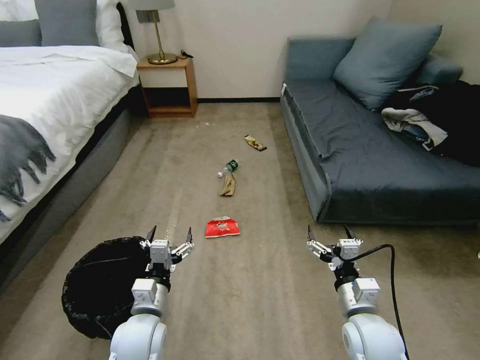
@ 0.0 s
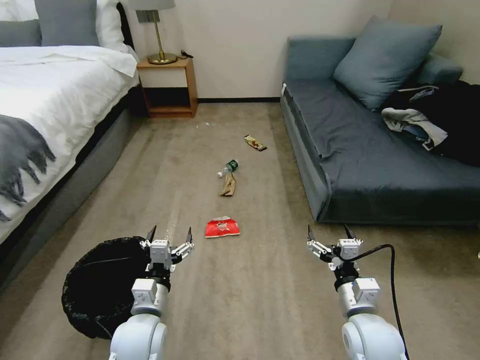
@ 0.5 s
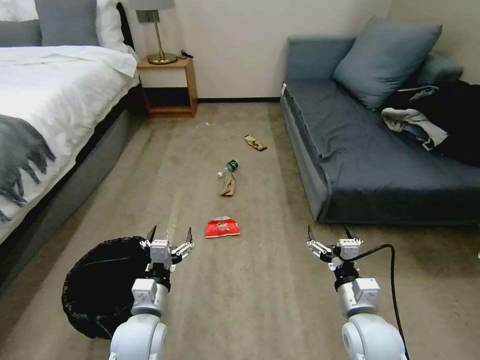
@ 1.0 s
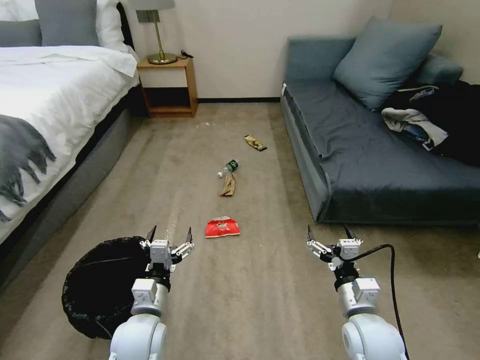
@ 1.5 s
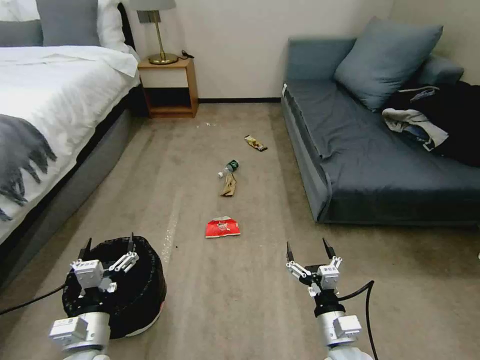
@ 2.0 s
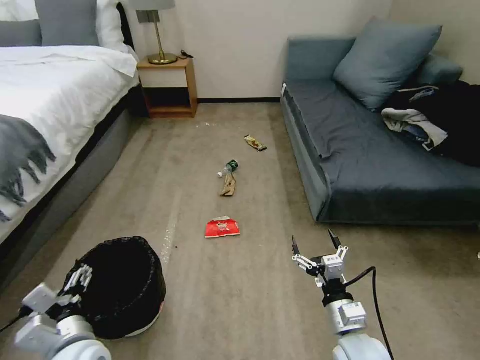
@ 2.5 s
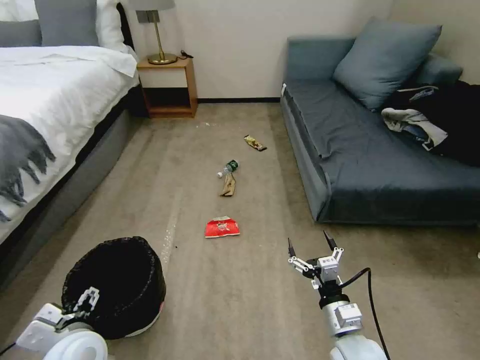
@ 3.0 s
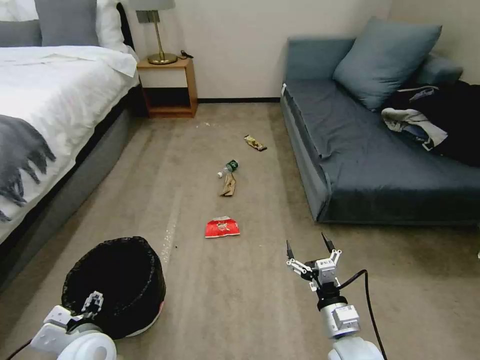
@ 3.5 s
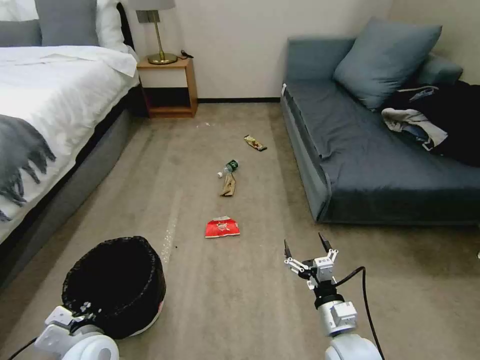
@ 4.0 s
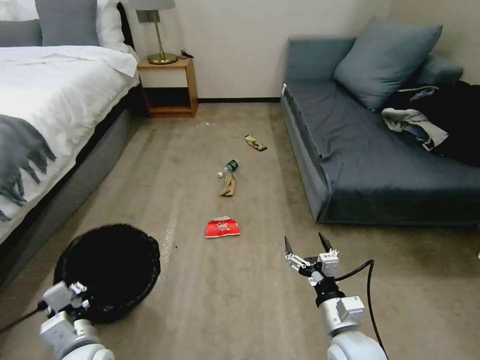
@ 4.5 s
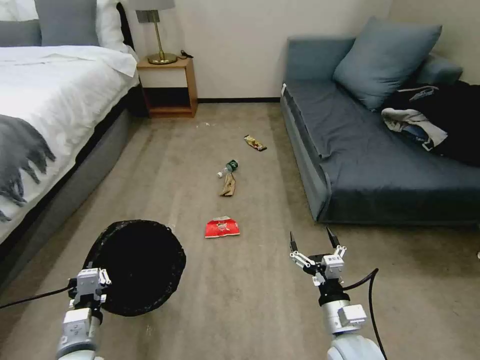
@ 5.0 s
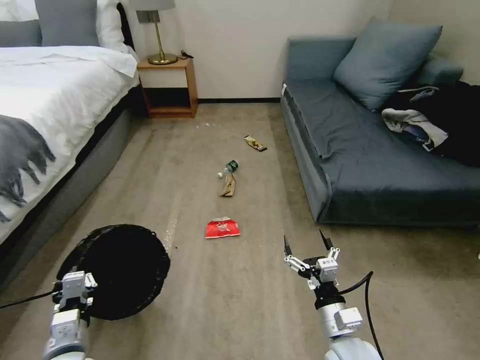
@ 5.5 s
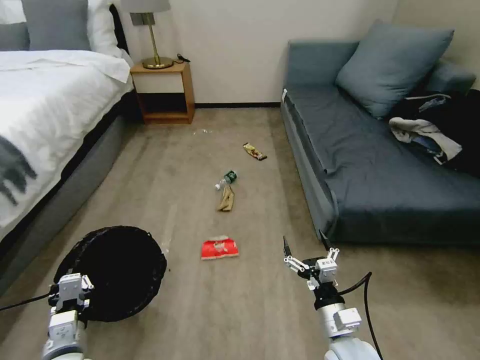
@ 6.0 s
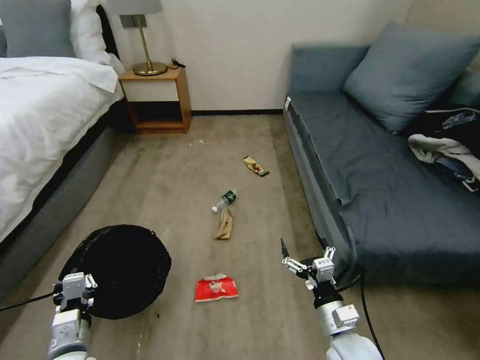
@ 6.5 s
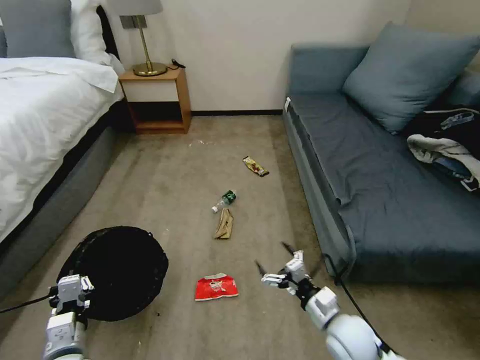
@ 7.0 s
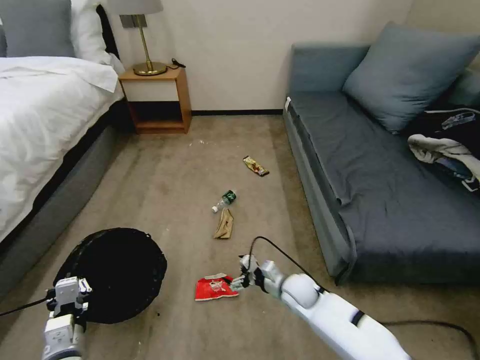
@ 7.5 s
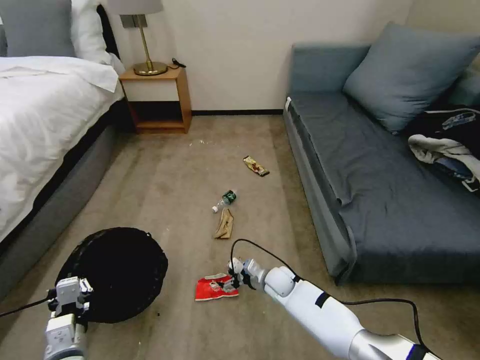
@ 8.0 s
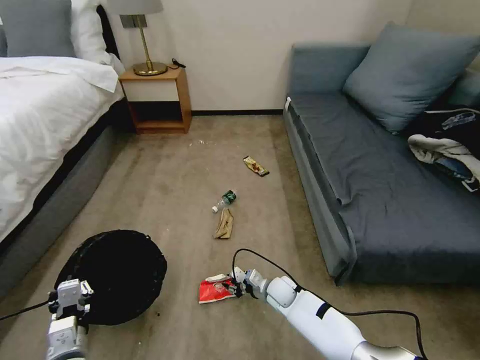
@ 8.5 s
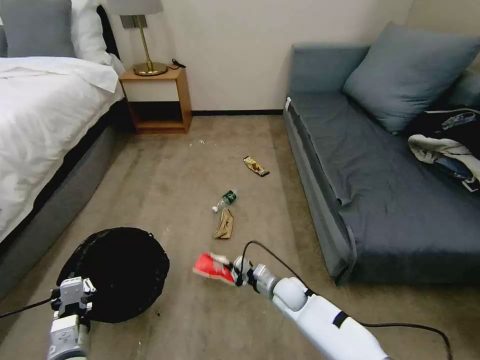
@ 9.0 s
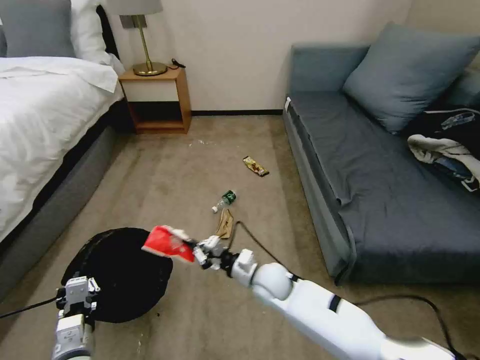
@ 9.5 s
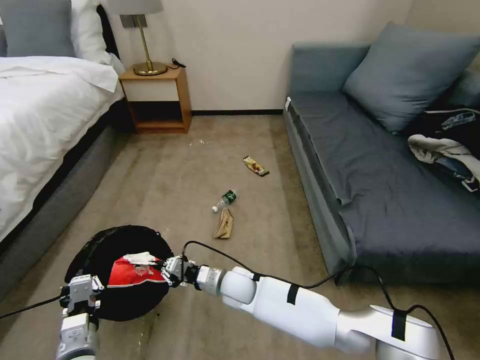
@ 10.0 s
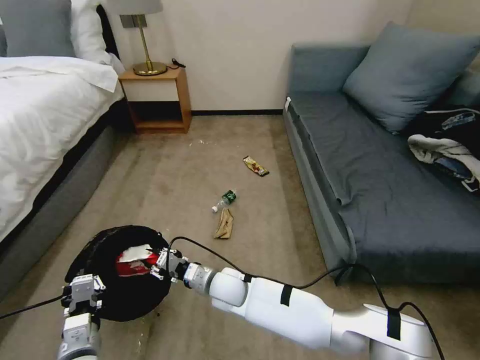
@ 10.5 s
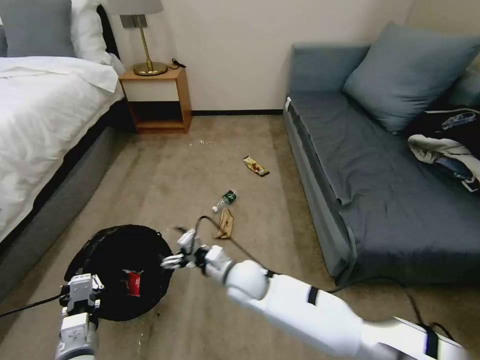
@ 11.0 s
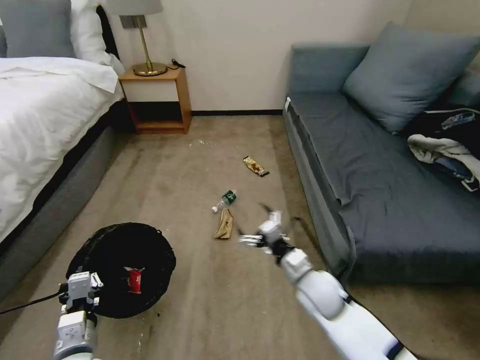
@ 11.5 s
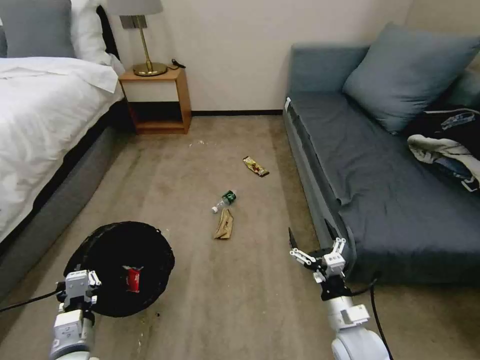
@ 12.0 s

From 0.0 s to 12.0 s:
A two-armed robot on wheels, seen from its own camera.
Task of the whole recording: Pick up the trash bin, then pick up the garbage on the floor and place it into the trash bin.
From 2.0 s to 4.0 s: The left gripper closes.
From 4.0 s to 6.0 s: The left gripper shifts by about 5 cm.
From 6.0 s to 8.0 s: The right gripper heads forward, downward and to the left, covering approximately 25 cm.
From 8.0 s to 10.0 s: The right gripper is displaced to the left and upward by some 15 cm, and closes its fingers.
From 10.0 s to 12.0 s: The right gripper heads to the right and backward, covering some 30 cm, and opens its fingers.

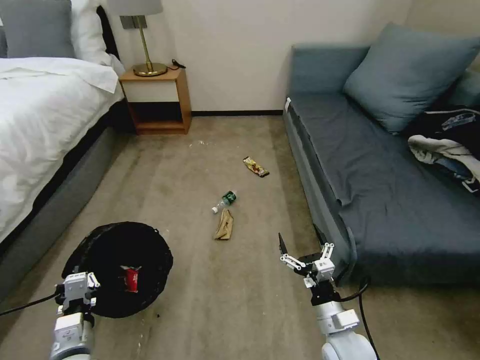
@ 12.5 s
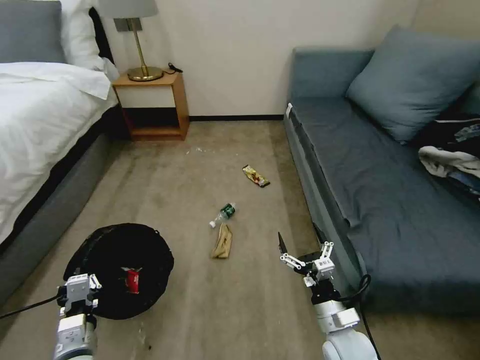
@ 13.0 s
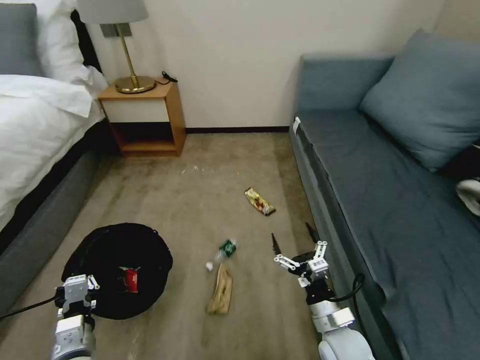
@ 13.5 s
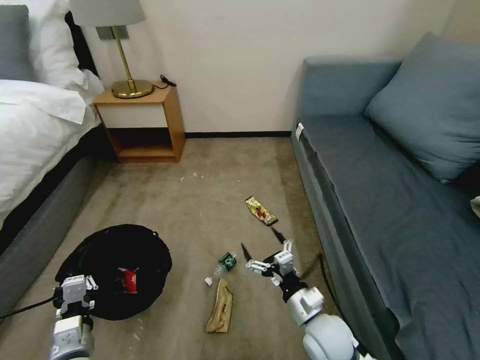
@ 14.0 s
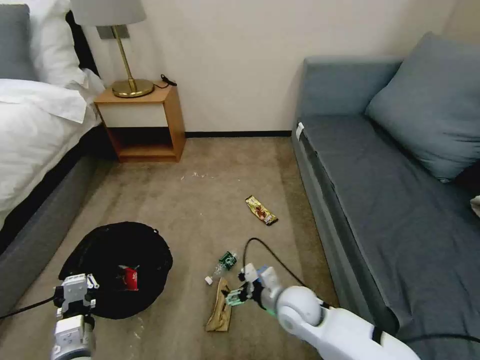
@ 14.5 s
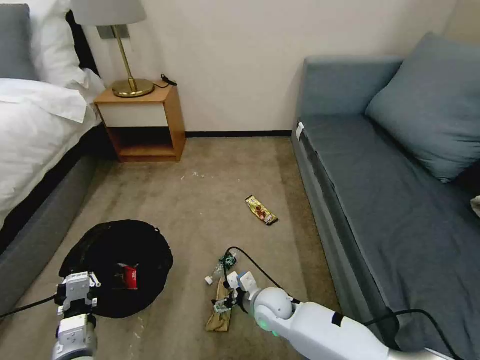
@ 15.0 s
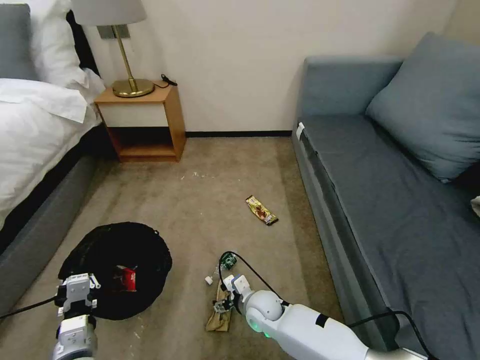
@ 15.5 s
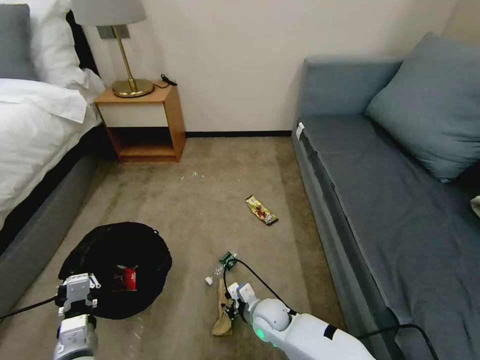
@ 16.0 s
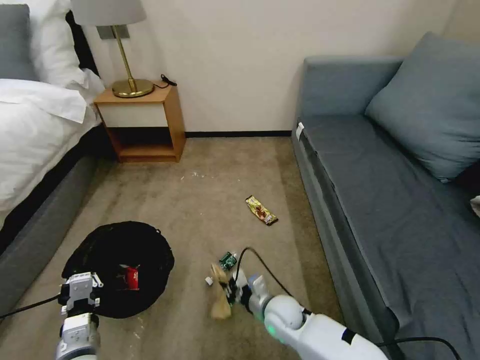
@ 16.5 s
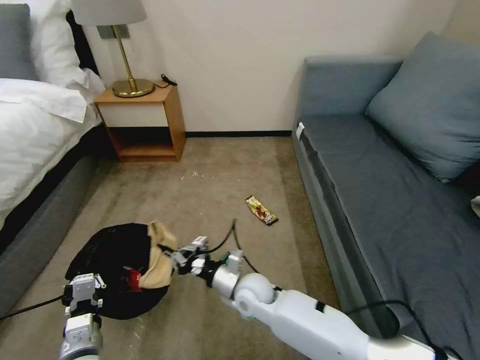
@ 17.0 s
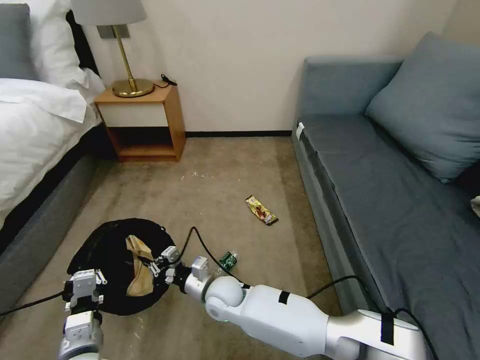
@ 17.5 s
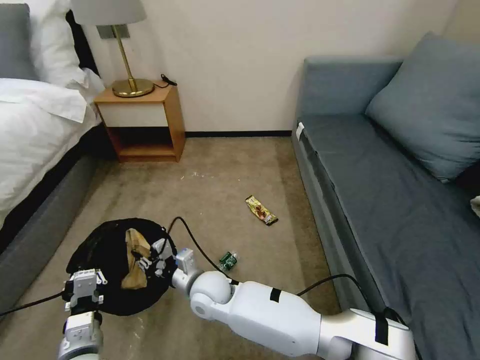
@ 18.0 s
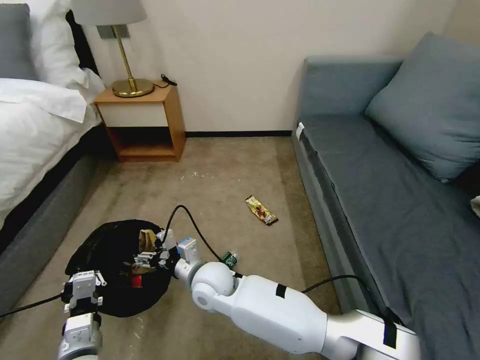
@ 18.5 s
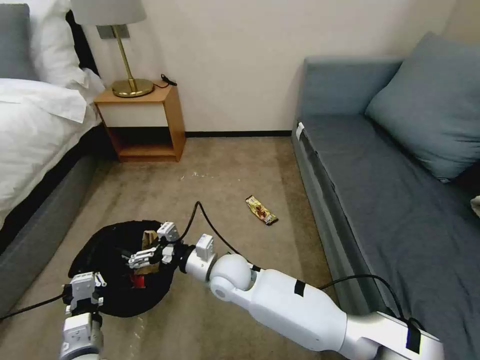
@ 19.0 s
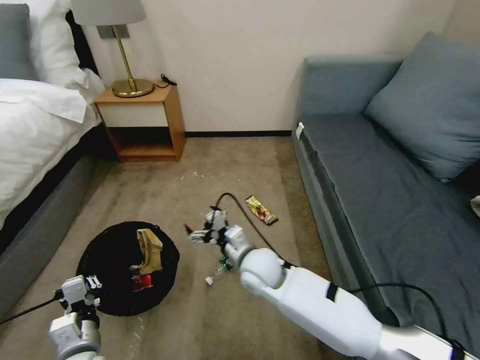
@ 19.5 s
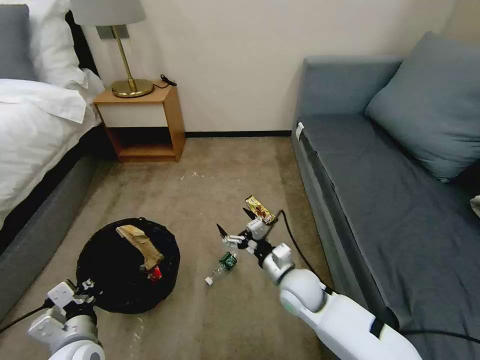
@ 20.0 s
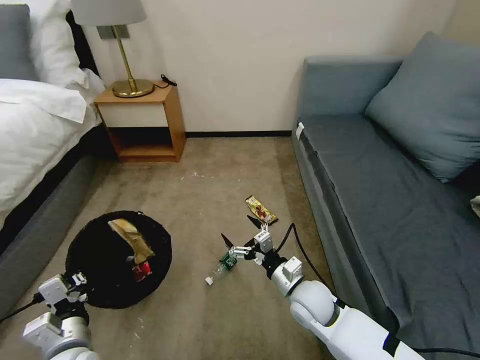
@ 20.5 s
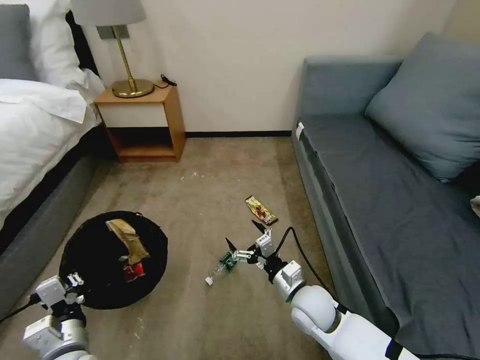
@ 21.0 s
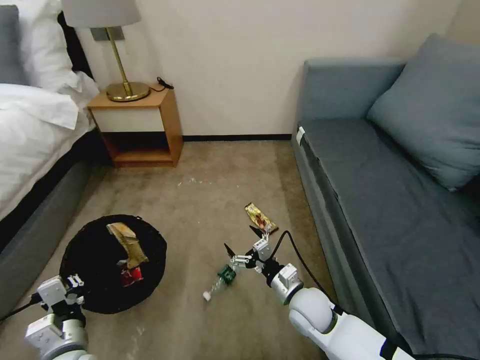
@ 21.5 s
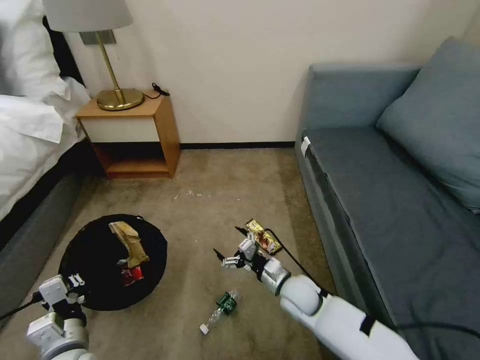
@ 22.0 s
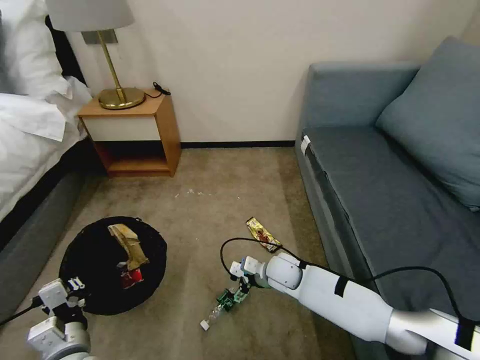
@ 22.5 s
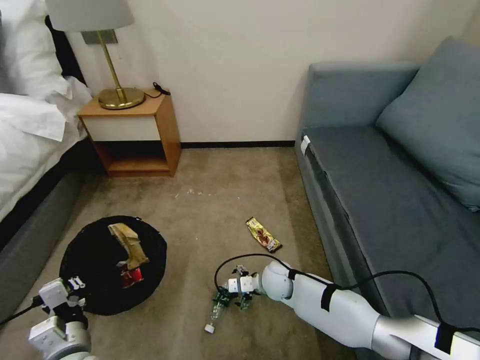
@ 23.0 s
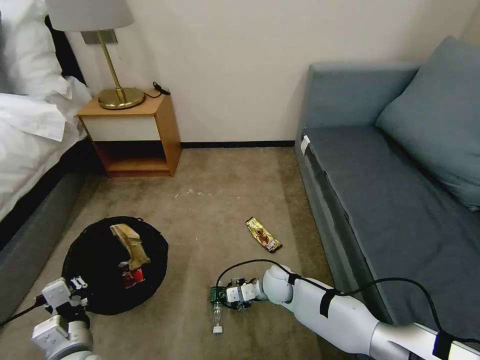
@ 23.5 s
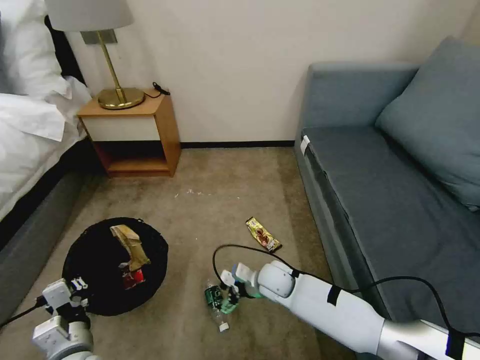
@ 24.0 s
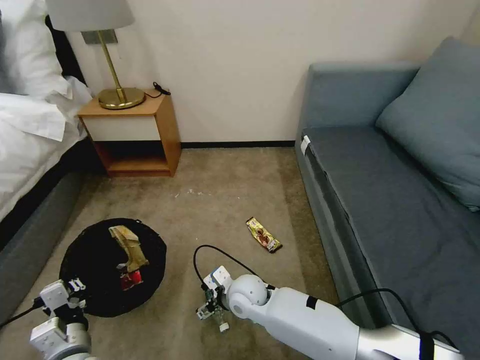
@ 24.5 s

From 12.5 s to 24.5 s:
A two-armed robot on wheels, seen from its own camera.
Task of the whole recording: Pick up the trash bin, then pick up the garbage on the floor and place it into the trash bin.
From 12.5 s to 14.5 s: The right gripper is displaced to the left and forward by roughly 15 cm.
From 14.5 s to 16.5 s: The right gripper moves downward, approximately 10 cm, and closes its fingers.
From 16.5 s to 18.5 s: The right gripper moves to the left and upward, approximately 20 cm, and opens.
From 18.5 s to 20.5 s: The right gripper is displaced to the right by about 25 cm.
From 20.5 s to 22.5 s: The right gripper moves forward, about 10 cm.
From 22.5 s to 24.5 s: The right gripper is displaced to the left and backward by roughly 10 cm, and closes, then reopens.

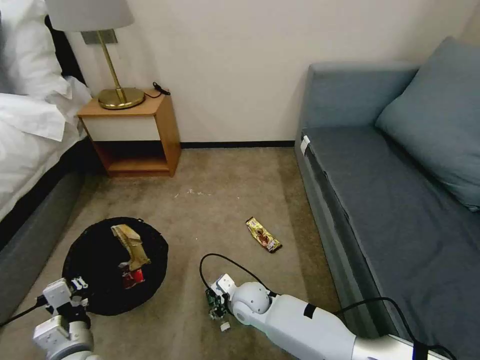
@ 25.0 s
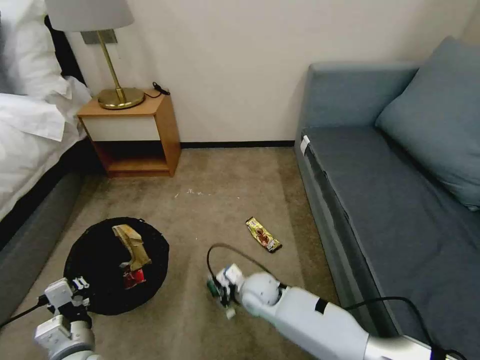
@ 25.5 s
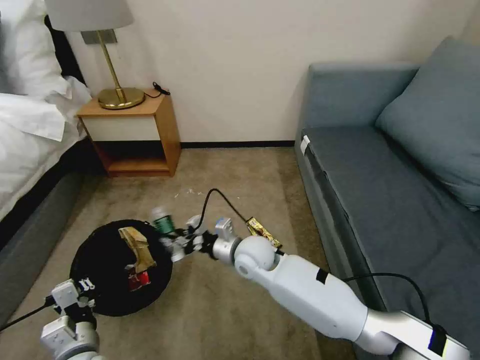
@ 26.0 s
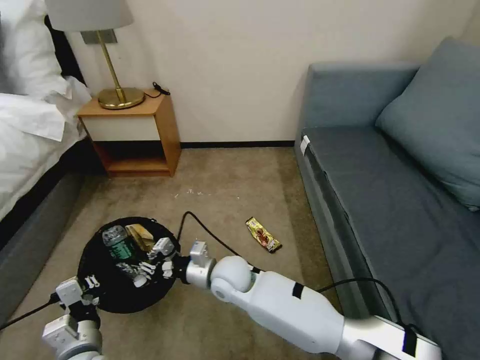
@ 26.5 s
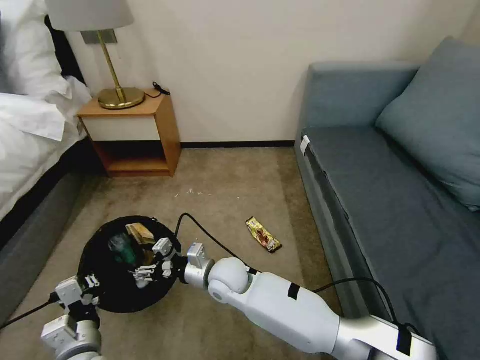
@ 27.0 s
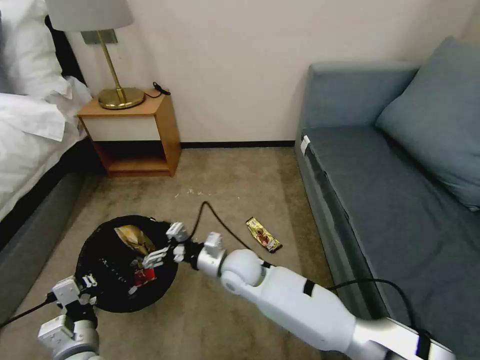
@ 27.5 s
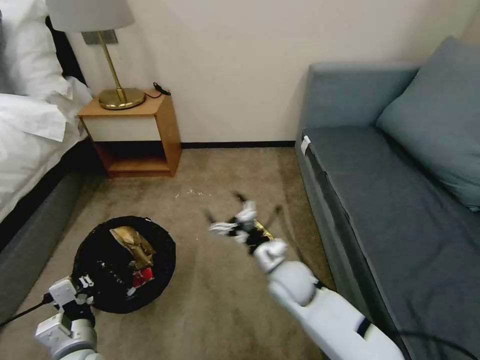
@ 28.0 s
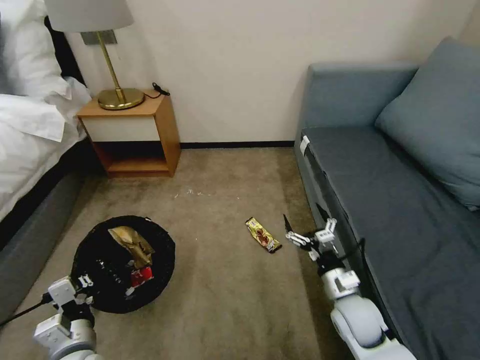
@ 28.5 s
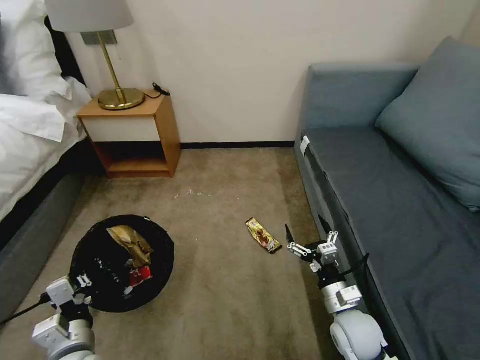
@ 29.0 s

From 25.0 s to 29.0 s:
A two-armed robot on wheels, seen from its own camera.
Task of the whole recording: Pick up the trash bin, then pick up the garbage on the floor and place it into the trash bin.
From 25.0 s to 27.0 s: The right gripper moves upward and to the left, roughly 10 cm, and closes and opens again.
From 27.0 s to 29.0 s: The right gripper is displaced to the right by roughly 30 cm, and opens.
